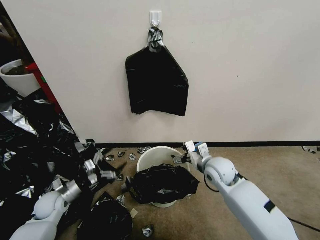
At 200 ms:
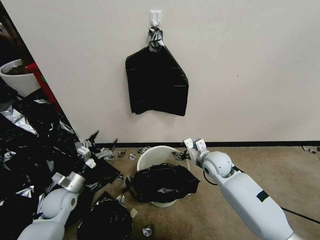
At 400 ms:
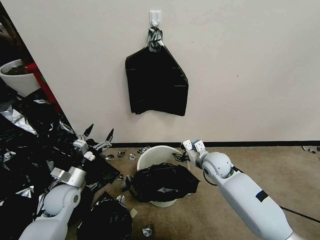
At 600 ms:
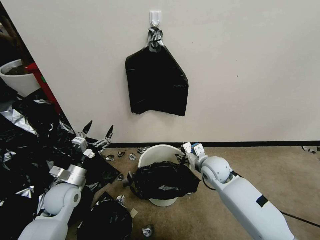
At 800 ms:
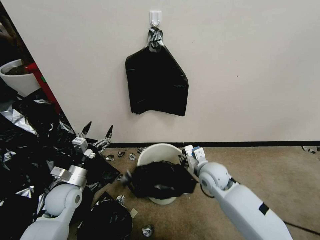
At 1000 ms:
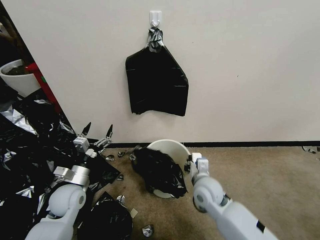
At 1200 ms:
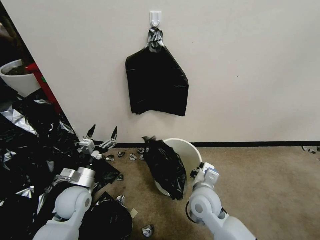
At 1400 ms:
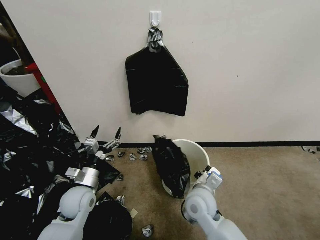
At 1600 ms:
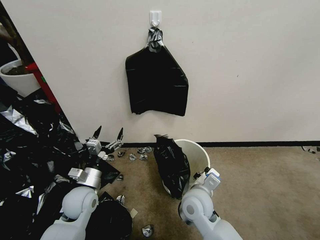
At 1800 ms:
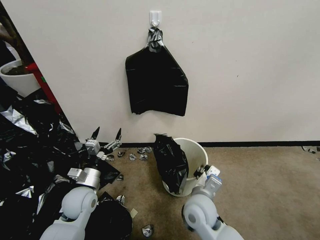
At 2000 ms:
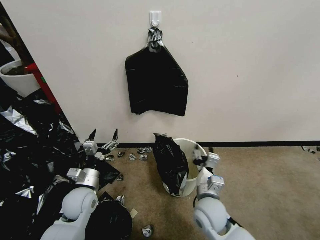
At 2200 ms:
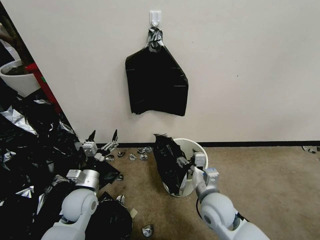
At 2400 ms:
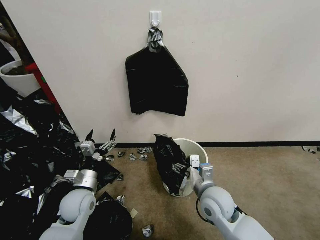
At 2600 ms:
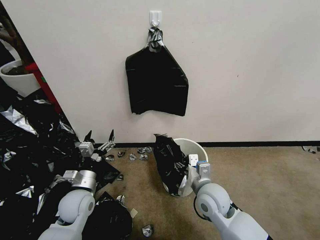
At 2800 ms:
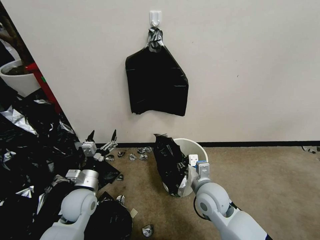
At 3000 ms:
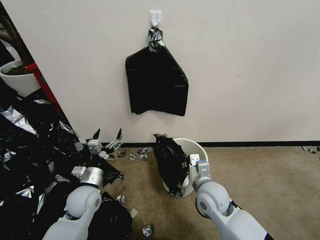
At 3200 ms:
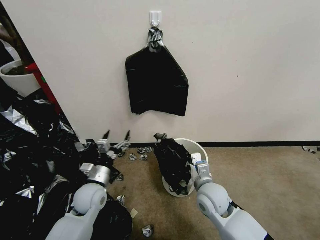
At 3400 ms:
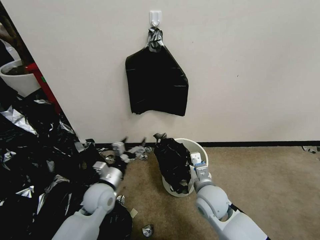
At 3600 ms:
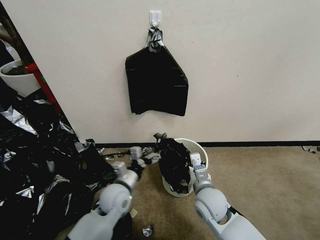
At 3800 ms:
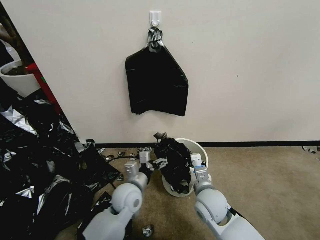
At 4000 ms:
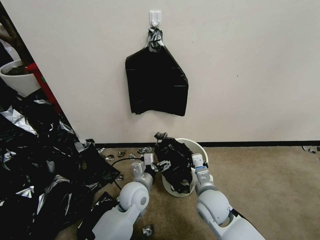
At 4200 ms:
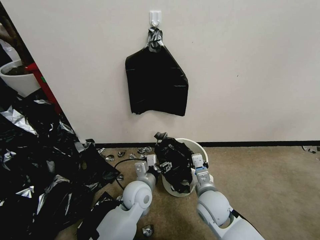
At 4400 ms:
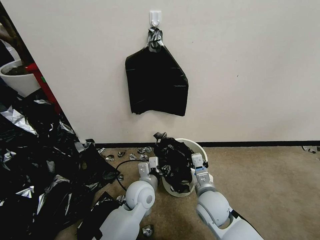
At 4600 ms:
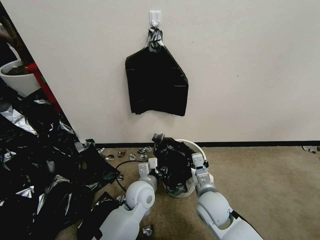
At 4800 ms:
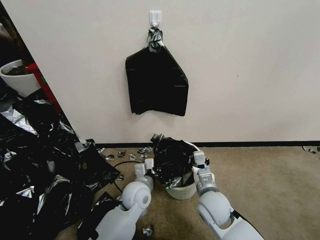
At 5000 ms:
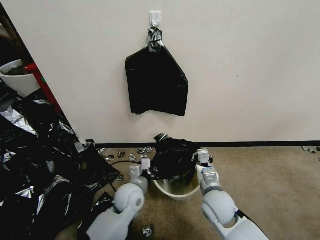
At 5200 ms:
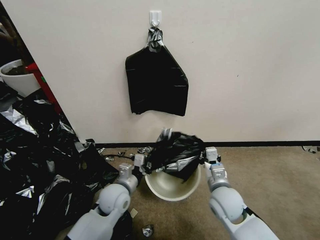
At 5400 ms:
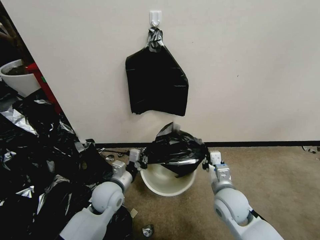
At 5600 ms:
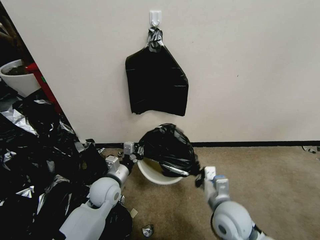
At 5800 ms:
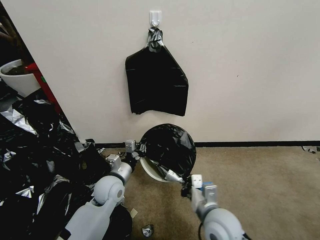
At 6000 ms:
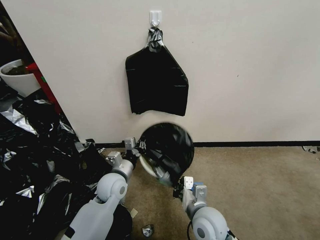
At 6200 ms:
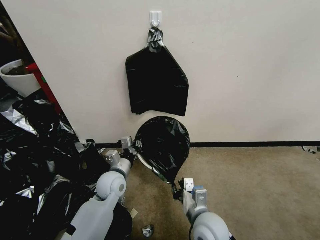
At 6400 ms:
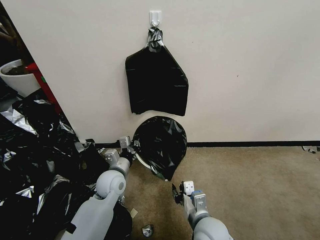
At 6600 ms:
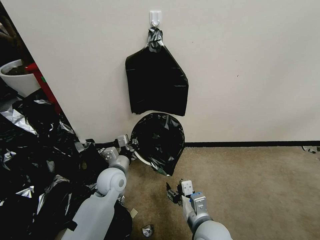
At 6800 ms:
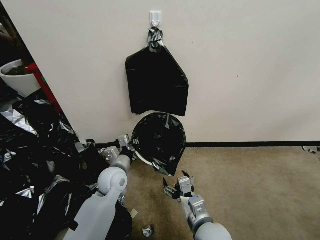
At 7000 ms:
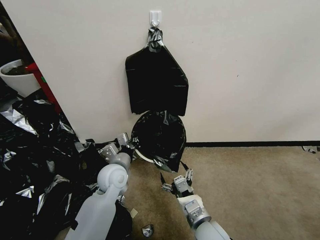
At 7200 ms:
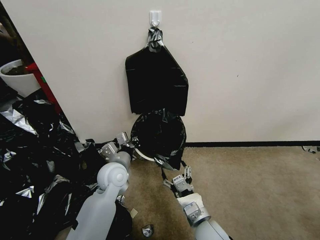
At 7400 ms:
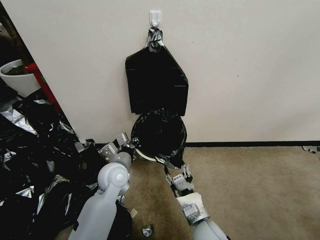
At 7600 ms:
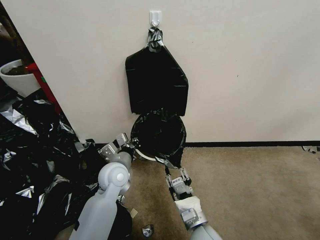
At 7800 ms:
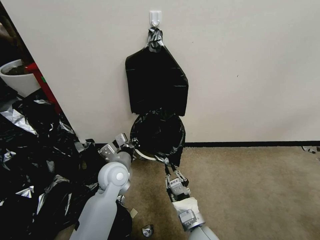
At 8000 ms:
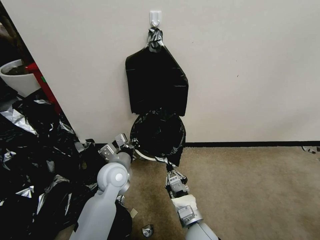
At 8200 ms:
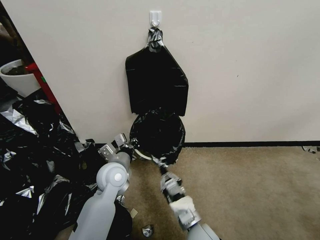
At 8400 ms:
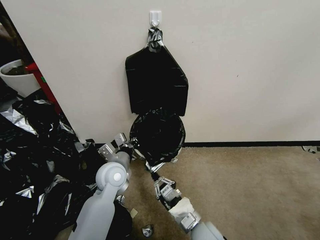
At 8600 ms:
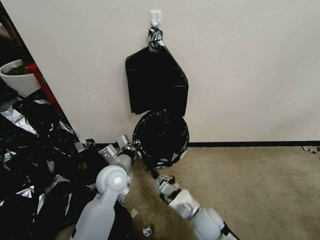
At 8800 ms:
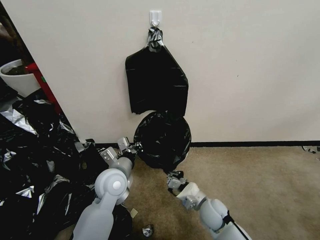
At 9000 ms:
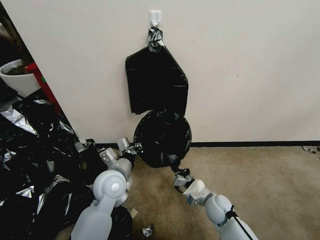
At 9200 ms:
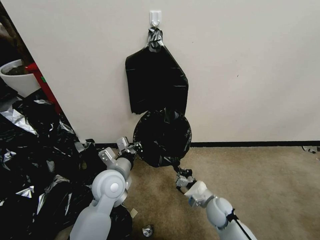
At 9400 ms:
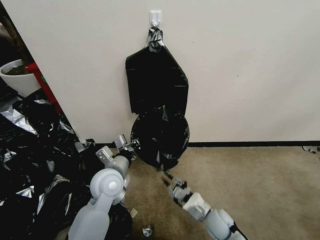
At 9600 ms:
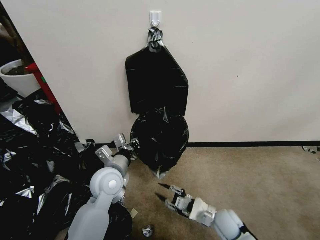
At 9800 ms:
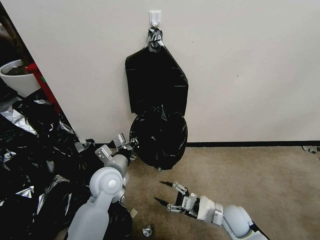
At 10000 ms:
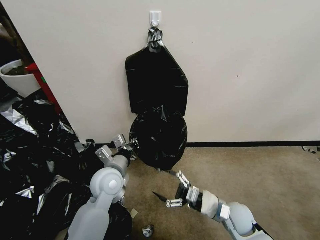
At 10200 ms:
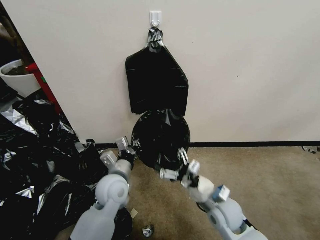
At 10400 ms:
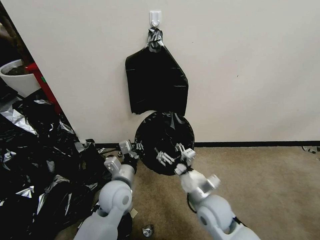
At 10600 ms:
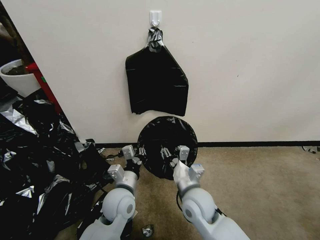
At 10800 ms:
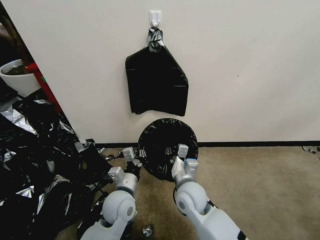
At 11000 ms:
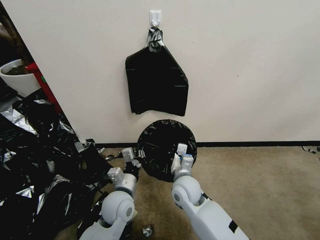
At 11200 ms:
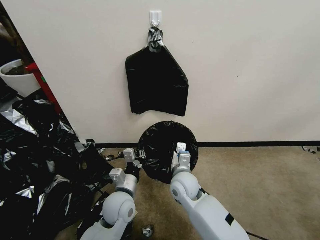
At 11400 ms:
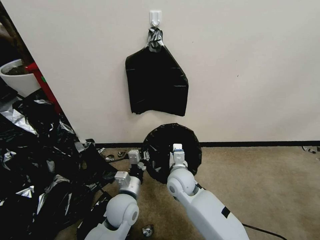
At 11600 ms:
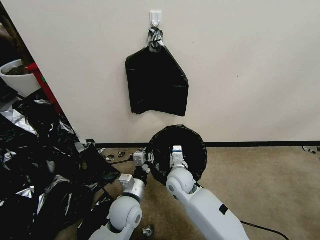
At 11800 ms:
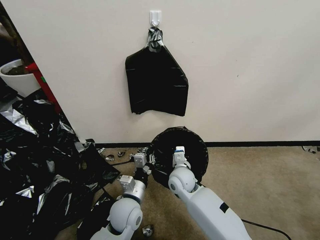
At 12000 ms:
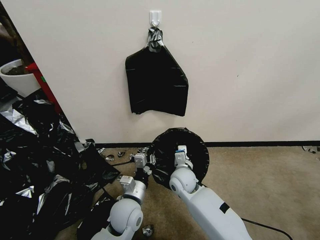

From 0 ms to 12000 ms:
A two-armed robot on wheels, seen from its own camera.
Task of the whole recording: Place a trash bag onto the trash bin.
From 0 ms to 1600 ms: The right gripper travels backward and to the left by about 15 cm, and closes; the left gripper travels to the right and upward by about 15 cm.
From 1600 ms to 3000 ms: The right gripper moves to the right, some 5 cm, and opens, then closes again.
From 3000 ms to 4400 ms: The left gripper moves to the right, approximately 20 cm, and closes its fingers.
From 4400 ms to 6000 ms: The right gripper ends up some 5 cm from where it was. Meanwhile the left gripper is displaced to the left by approximately 10 cm, and closes up.
From 6000 ms to 7600 ms: The left gripper shifts by about 5 cm, while the right gripper moves approximately 5 cm, and opens up.
From 7600 ms to 9000 ms: The right gripper is displaced forward, to the right and downward by roughly 15 cm, and closes its fingers.
From 9000 ms to 10400 ms: The right gripper goes approximately 15 cm upward and to the left, and opens.
From 10400 ms to 12000 ms: The left gripper ends up some 5 cm from where it was, while the right gripper shifts roughly 15 cm forward, to the left and downward, and closes up.

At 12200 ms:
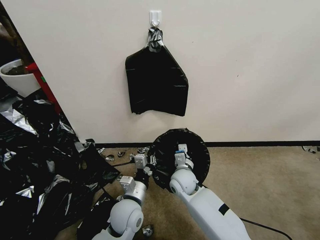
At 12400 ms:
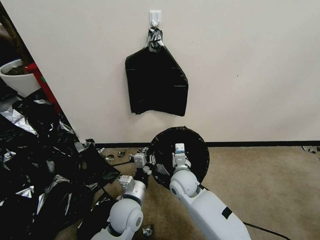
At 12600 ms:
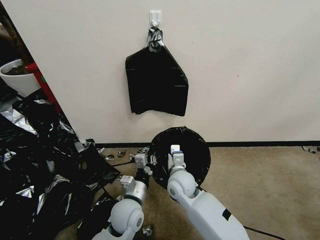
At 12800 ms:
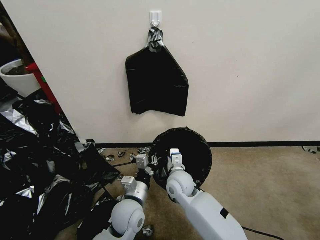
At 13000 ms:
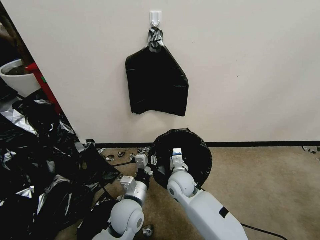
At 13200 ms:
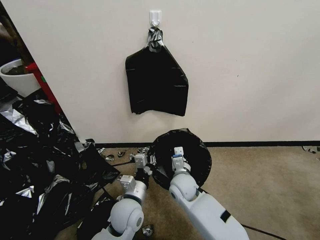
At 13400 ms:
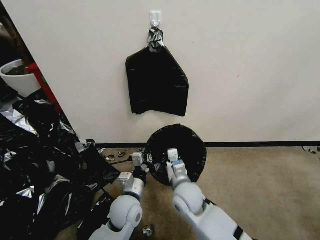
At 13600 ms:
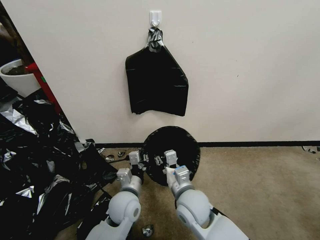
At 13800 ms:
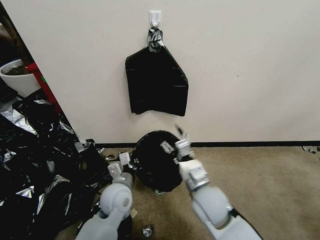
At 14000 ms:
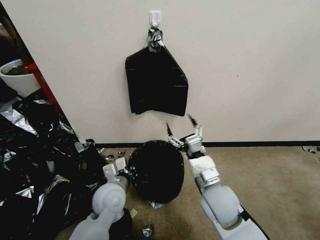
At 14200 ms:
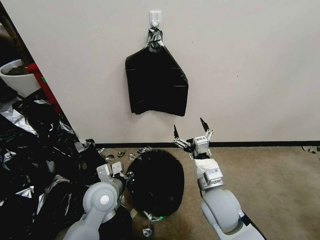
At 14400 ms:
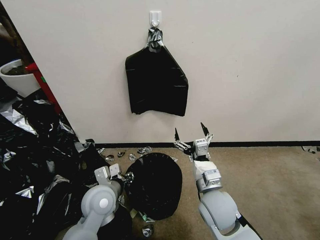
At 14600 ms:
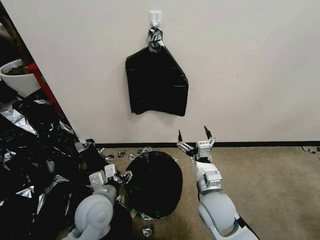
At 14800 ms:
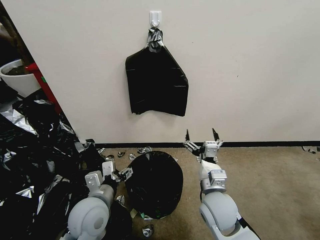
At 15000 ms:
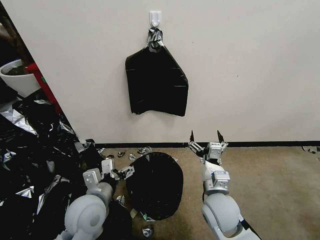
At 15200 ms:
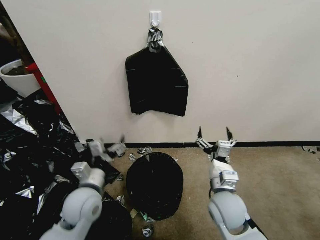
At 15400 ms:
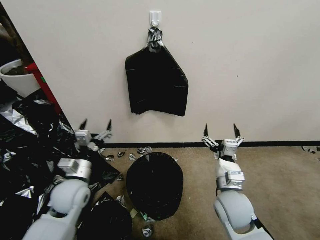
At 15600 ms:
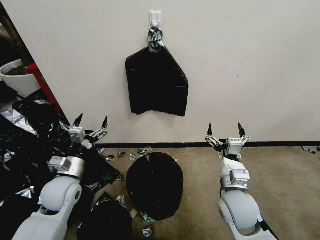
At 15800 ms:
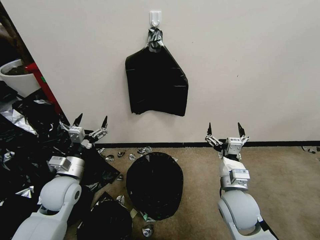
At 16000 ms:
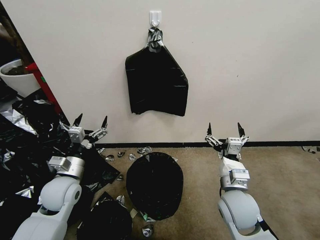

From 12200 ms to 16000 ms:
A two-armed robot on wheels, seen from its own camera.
Task of the whole recording: Place a trash bag onto the trash bin.
From 12200 ms to 13400 ms: The right gripper heads backward, covering about 5 cm.
From 13400 ms to 14800 ms: The right gripper goes approximately 5 cm to the right, and opens. Meanwhile the left gripper goes some 10 cm upward and to the left, and opens its fingers.
From 14800 ms to 16000 ms: The left gripper goes some 15 cm to the left and forward. Meanwhile the right gripper is displaced to the right by approximately 5 cm.
